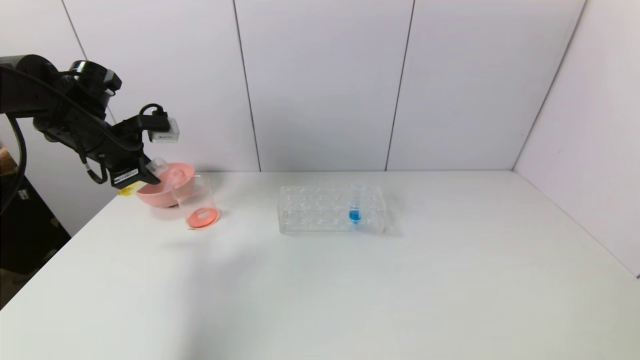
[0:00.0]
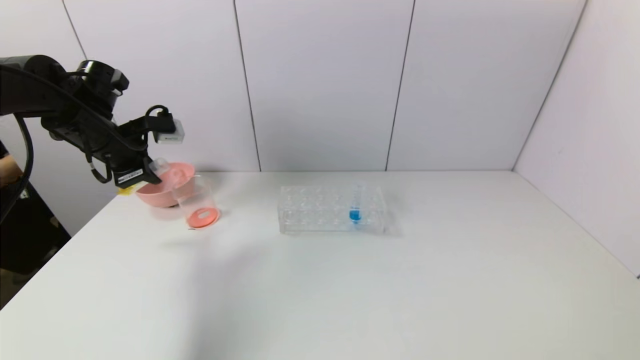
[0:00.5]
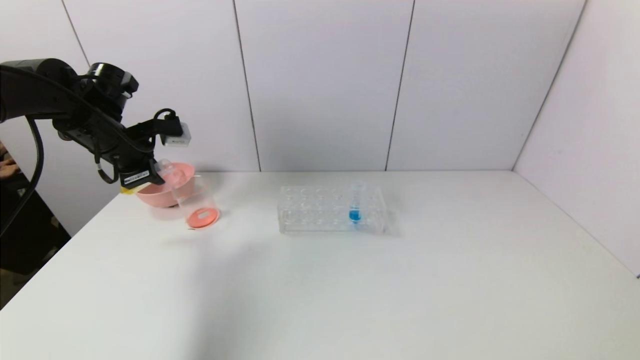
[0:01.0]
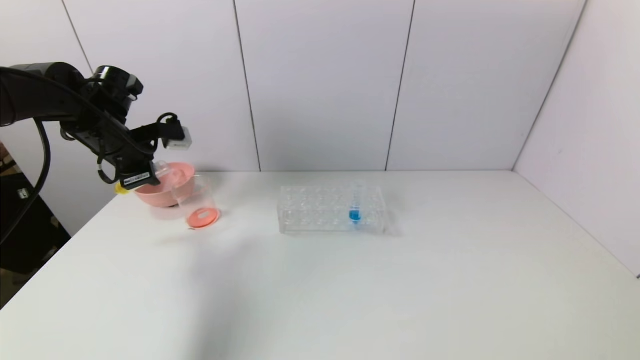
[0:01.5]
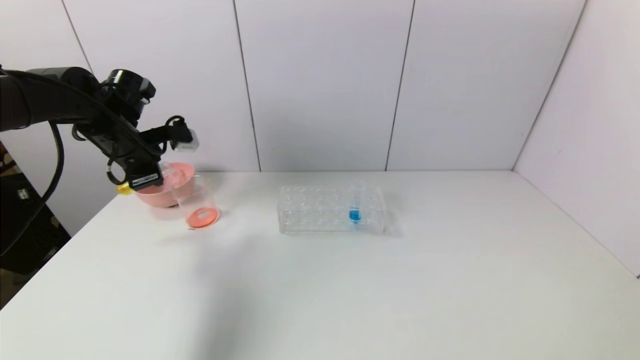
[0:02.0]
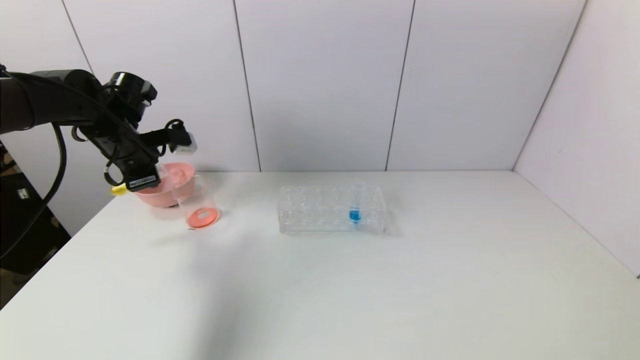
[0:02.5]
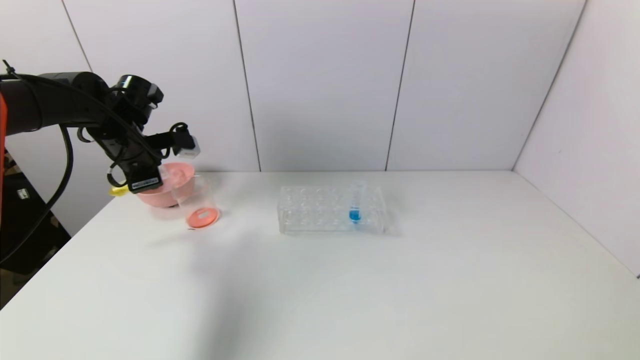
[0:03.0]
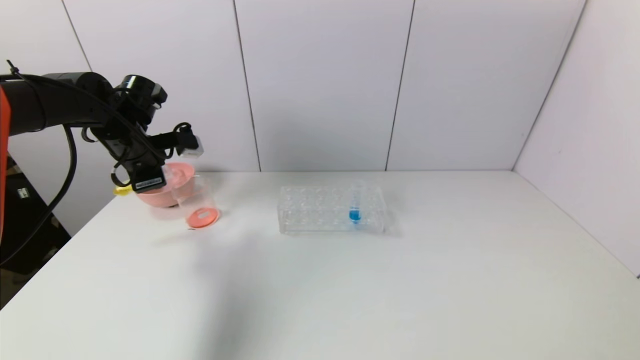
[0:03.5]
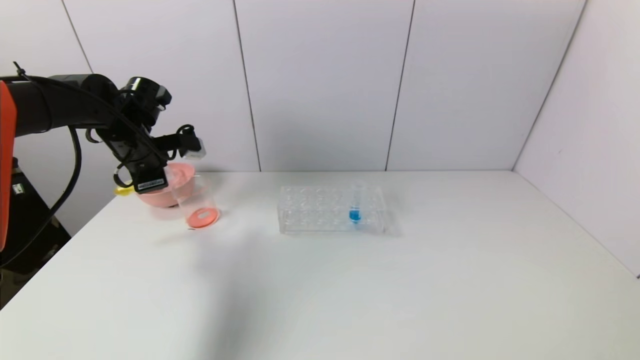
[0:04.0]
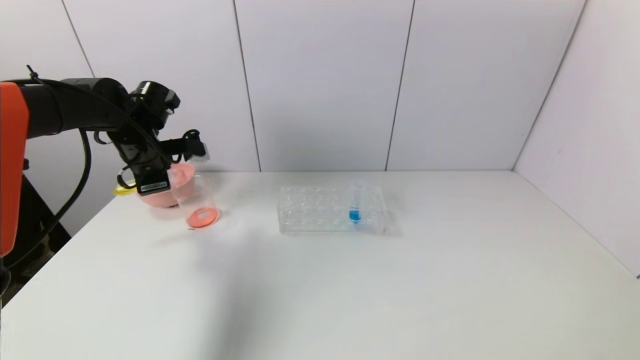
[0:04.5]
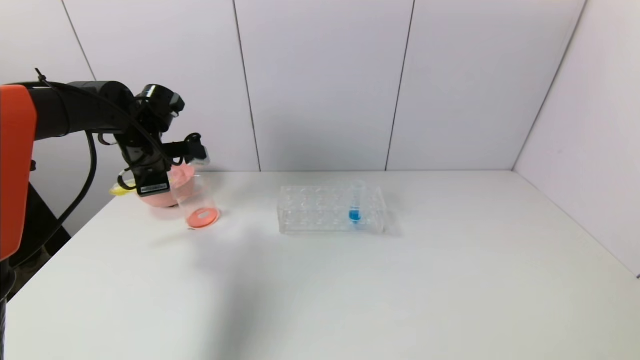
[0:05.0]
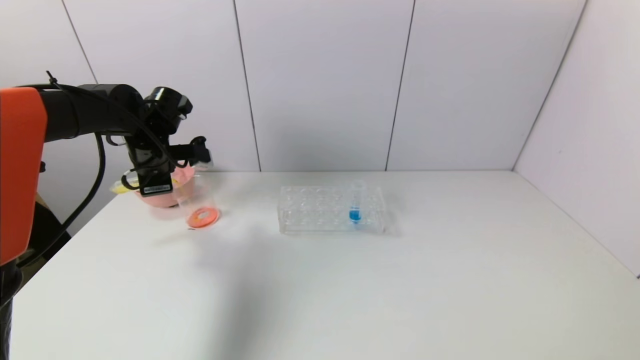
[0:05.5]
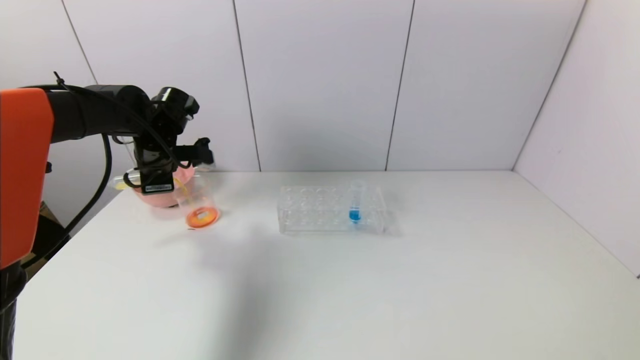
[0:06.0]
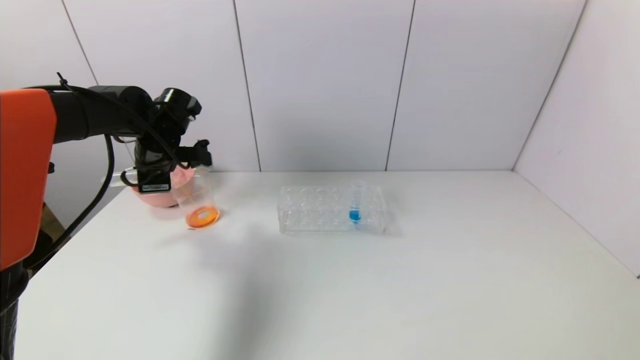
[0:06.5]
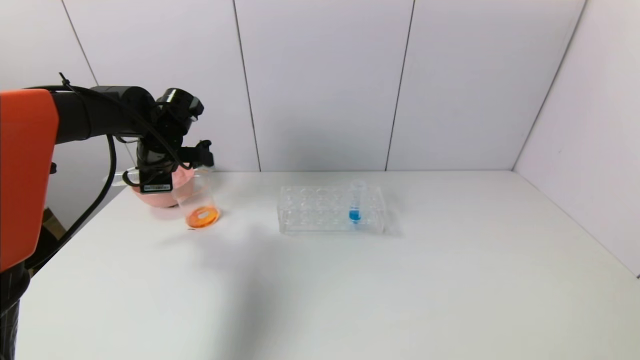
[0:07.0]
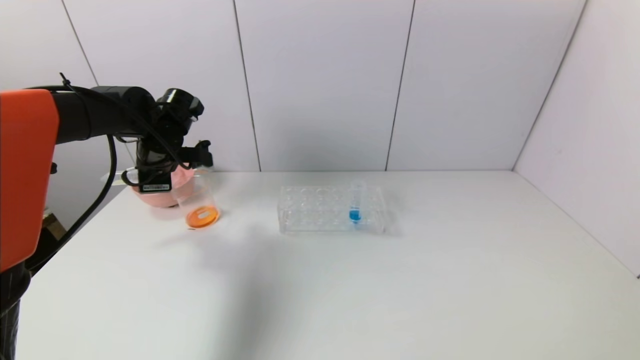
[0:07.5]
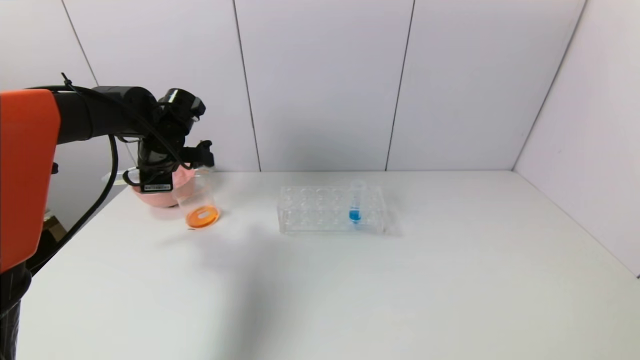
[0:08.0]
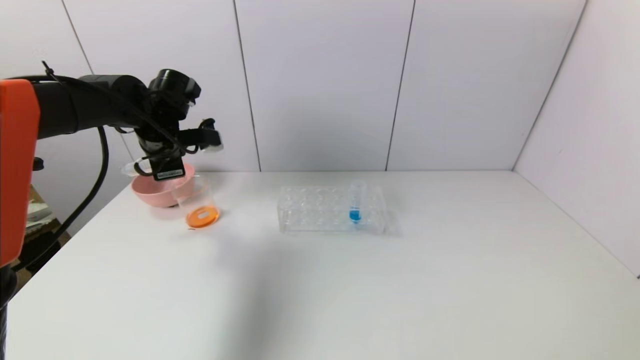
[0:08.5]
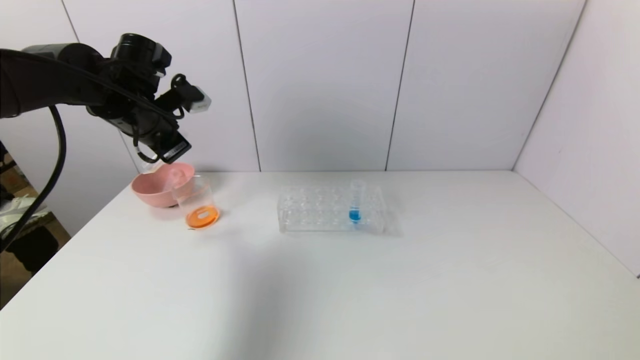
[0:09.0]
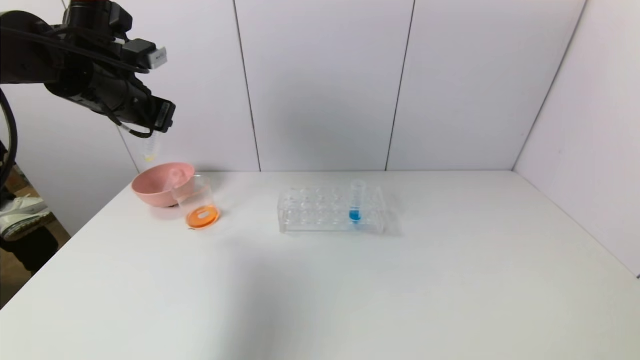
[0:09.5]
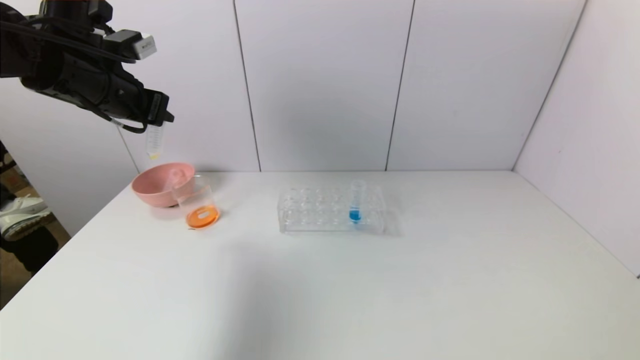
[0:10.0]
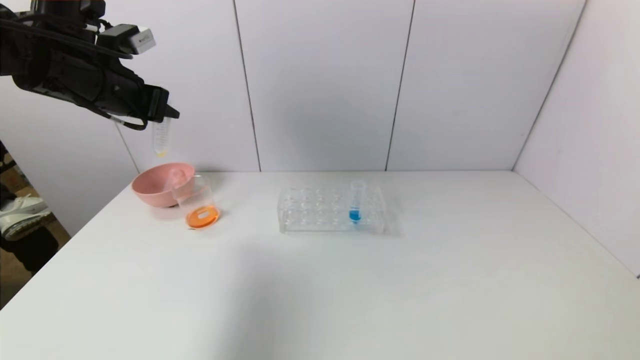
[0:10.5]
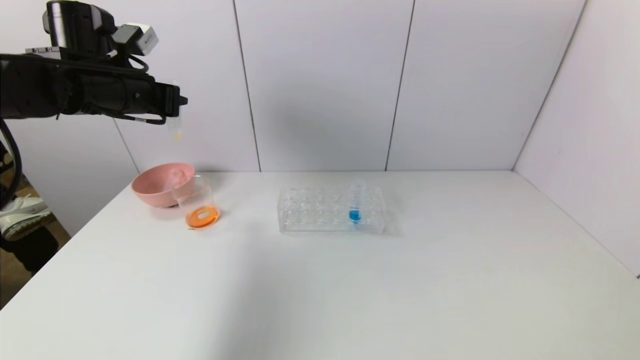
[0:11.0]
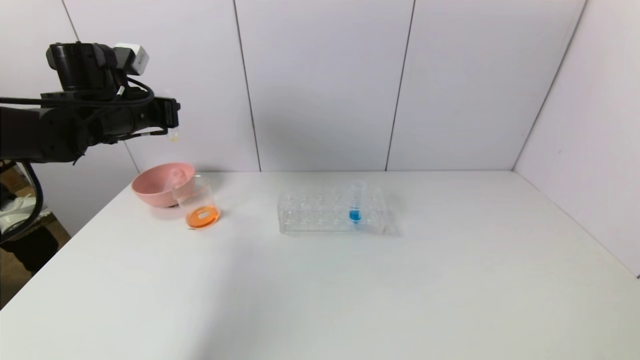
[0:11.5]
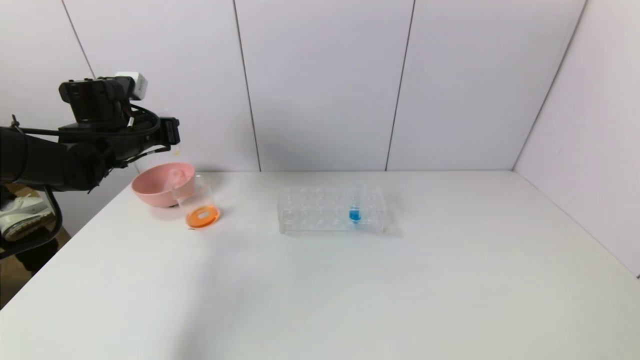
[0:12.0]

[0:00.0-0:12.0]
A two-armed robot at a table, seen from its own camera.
Task of the whole recording: pick up the test tube with yellow pigment and the test tube with red pigment by grippers and pour them into the beaker.
Step, 0:00.0 to 0:07.5: Pour the yellow reagent into the graduated cylinder with the left gripper.
0:00.0 to 0:02.0: The grippers stay close to where they were, moving slightly.
0:02.0 to 0:04.0: There are only small adjustments of the grippers.
0:04.0 to 0:06.0: The grippers stay close to where they were, moving slightly.
0:06.0 to 0:08.0: The grippers make only small movements.
0:08.0 to 0:10.0: The left gripper heads upward and backward, covering some 15 cm.
0:10.0 to 0:12.0: The left gripper shifts some 10 cm downward and forward.

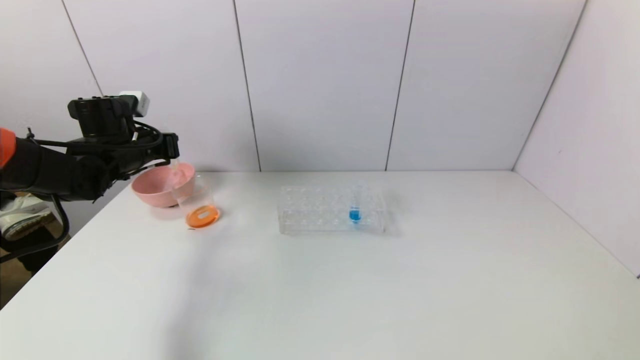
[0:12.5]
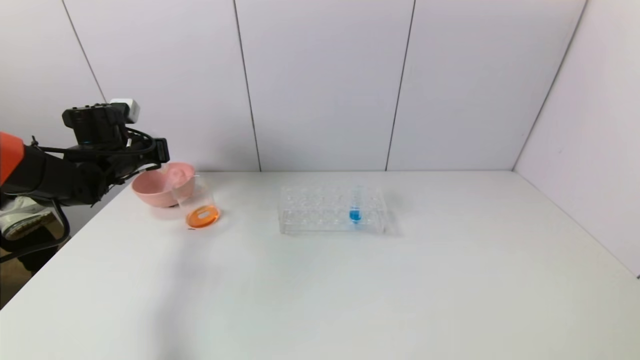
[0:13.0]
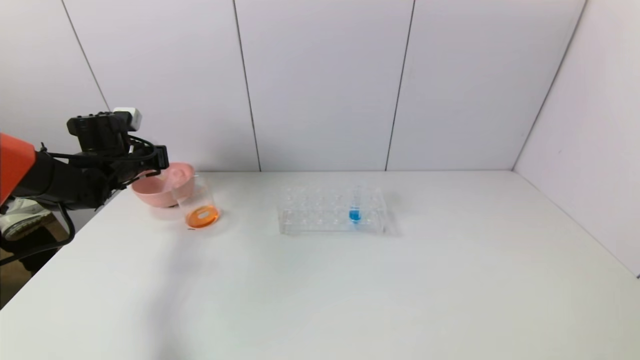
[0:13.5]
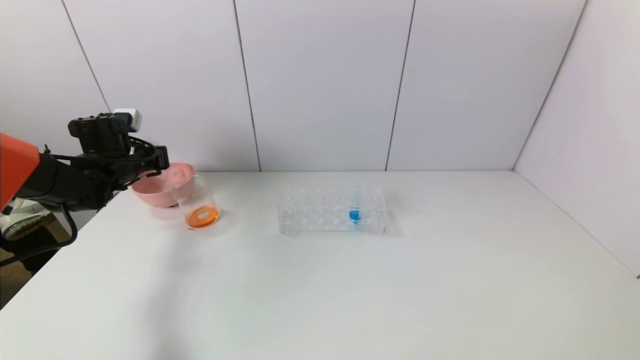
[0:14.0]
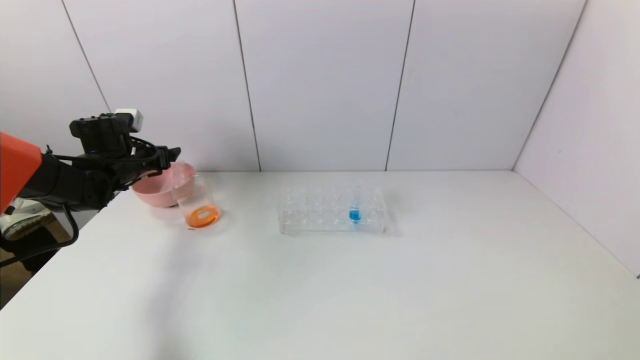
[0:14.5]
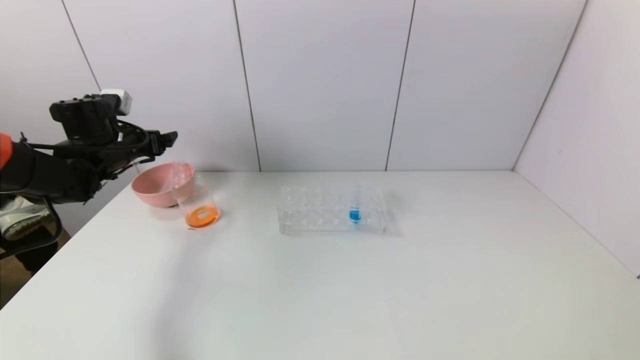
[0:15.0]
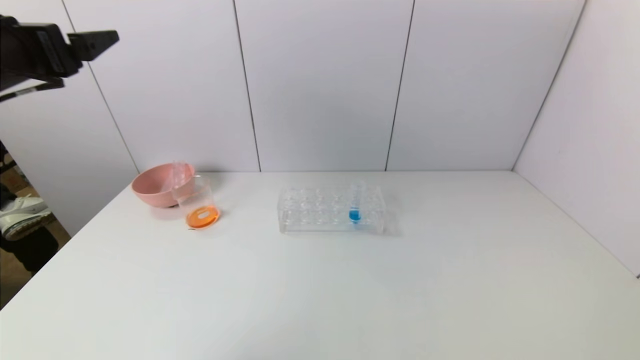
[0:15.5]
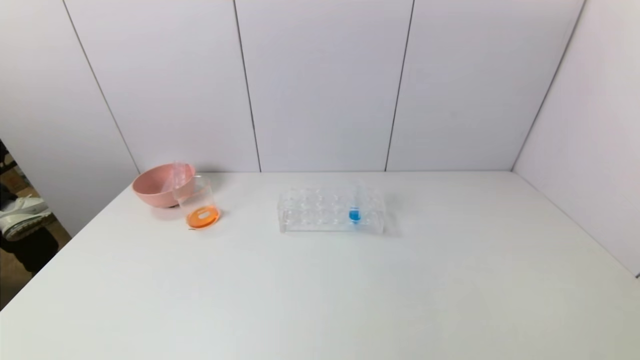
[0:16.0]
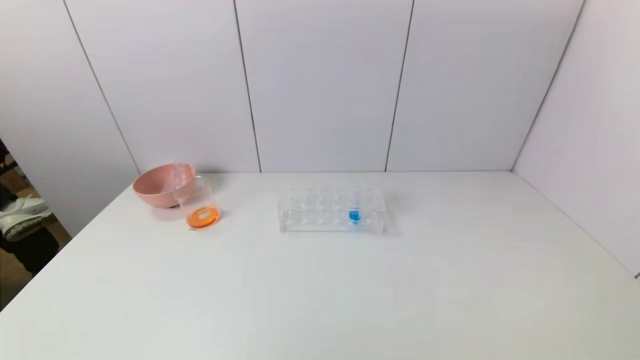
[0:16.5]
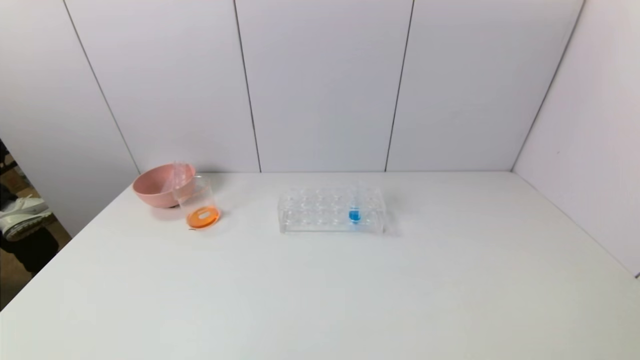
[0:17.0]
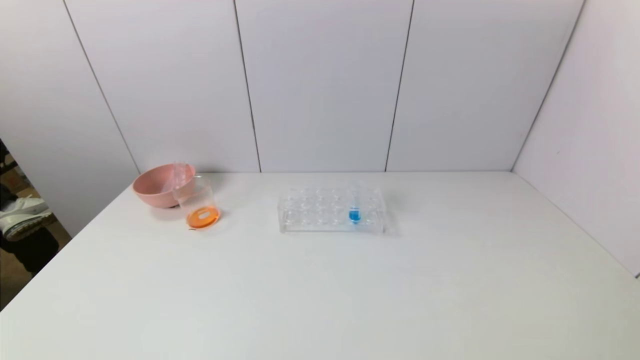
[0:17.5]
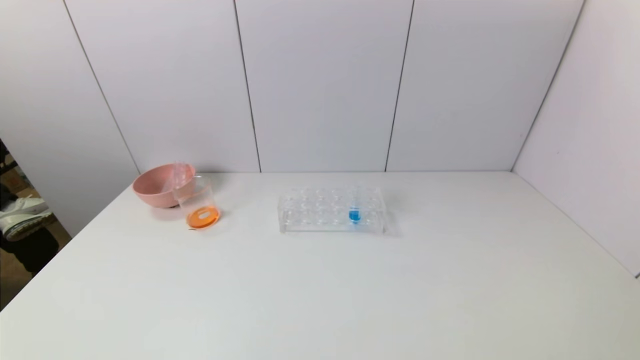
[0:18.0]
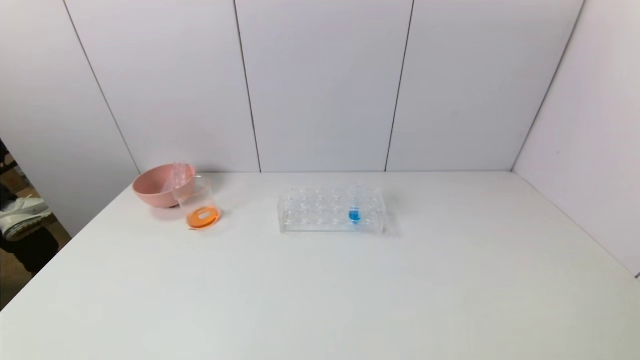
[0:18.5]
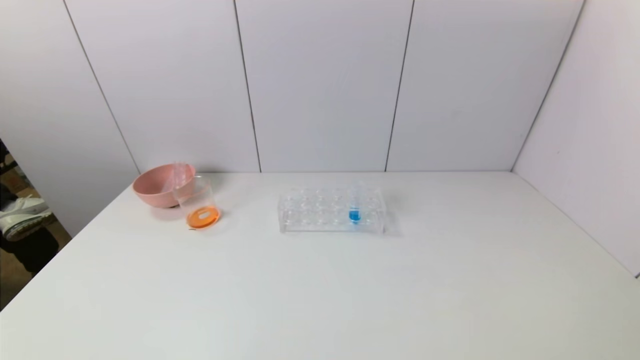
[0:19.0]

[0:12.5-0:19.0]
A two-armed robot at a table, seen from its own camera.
Task of the whole recording: pick up the test tube with yellow pigment and the test tube with red pigment by grippers and pour them into the beaker.
0:12.5 to 0:14.5: The left gripper shifts by about 5 cm, and opens.
0:14.5 to 0:17.0: The left gripper is displaced backward by approximately 50 cm.
